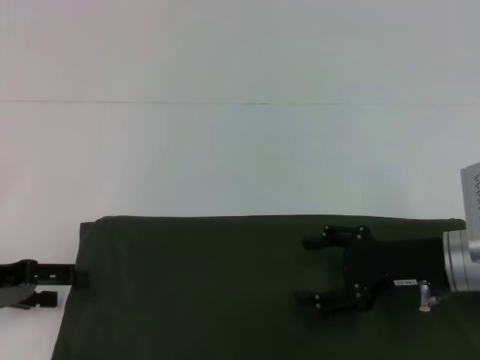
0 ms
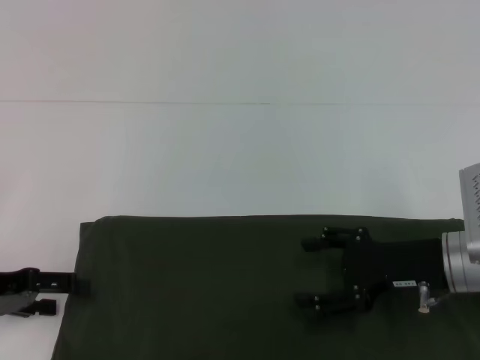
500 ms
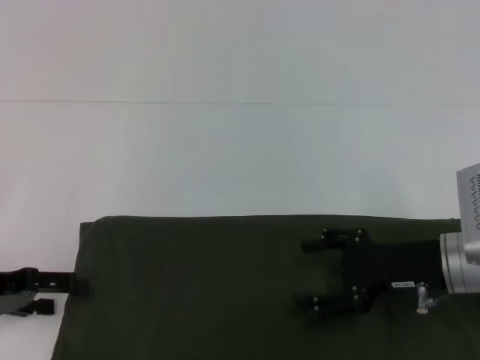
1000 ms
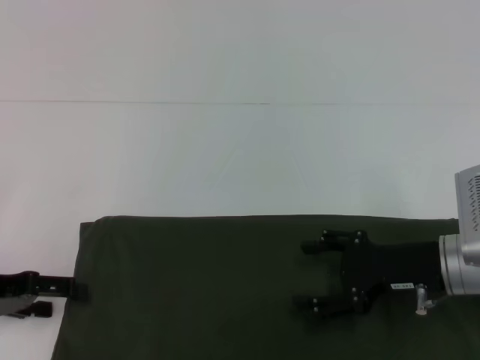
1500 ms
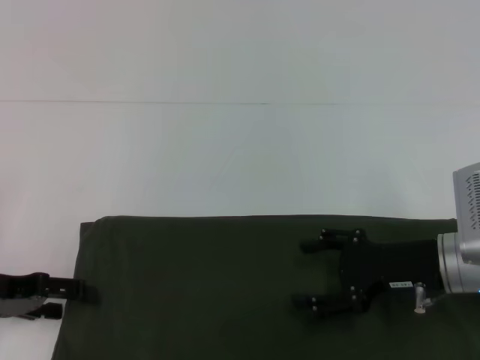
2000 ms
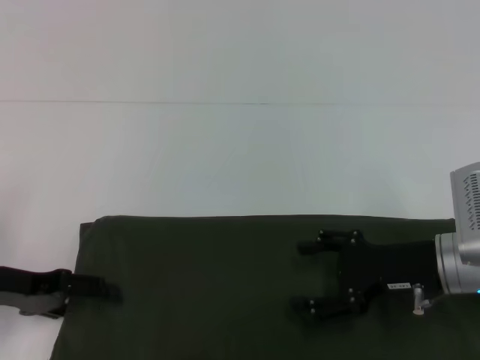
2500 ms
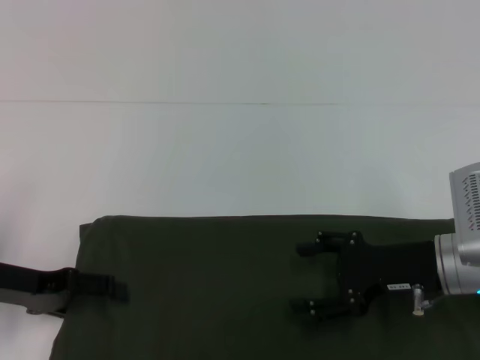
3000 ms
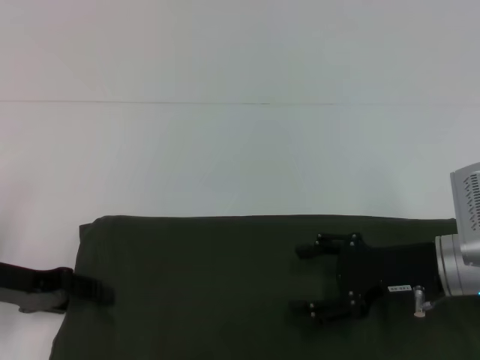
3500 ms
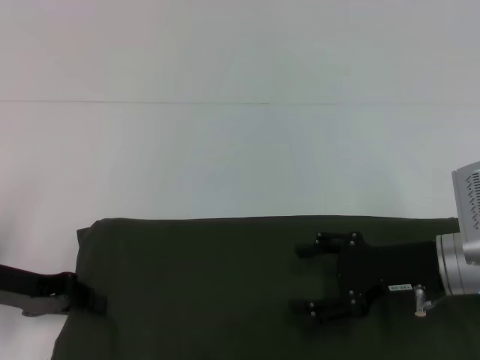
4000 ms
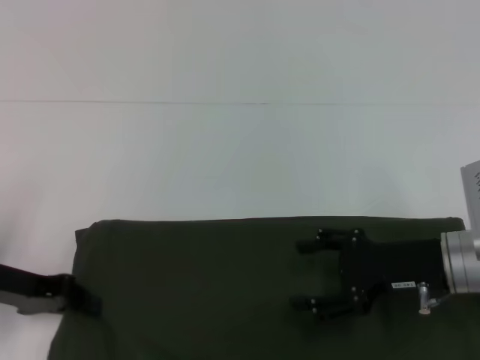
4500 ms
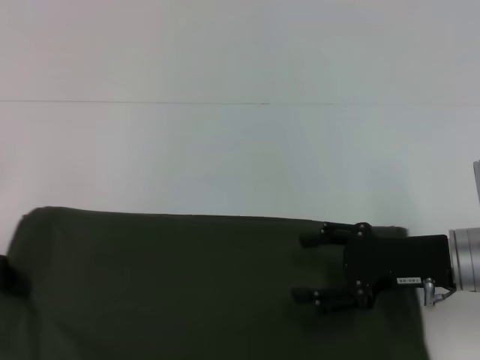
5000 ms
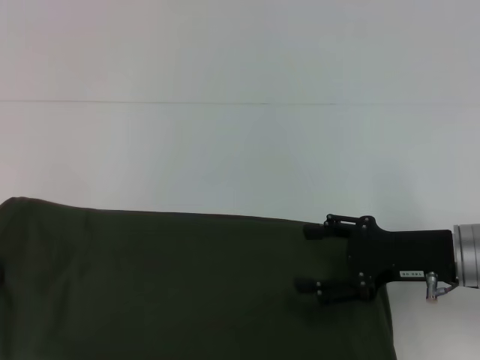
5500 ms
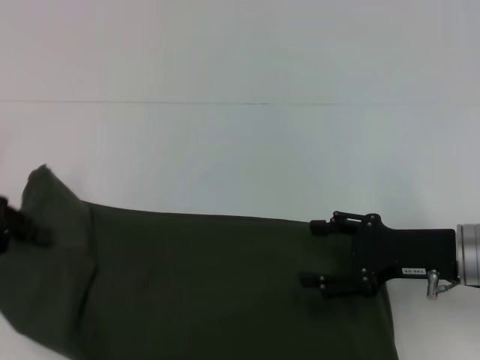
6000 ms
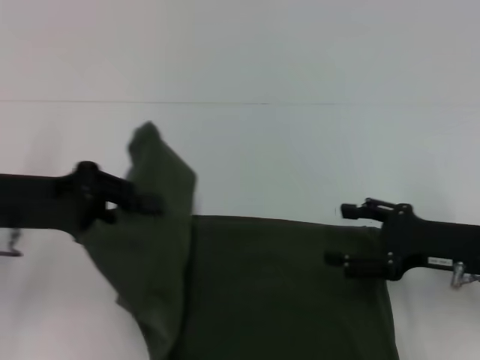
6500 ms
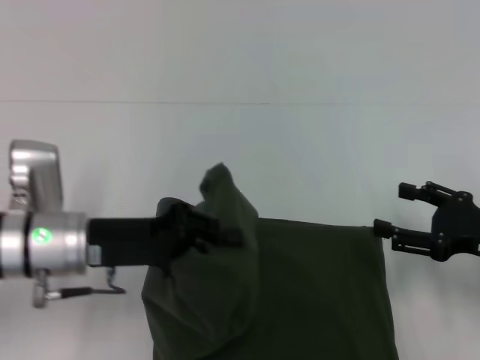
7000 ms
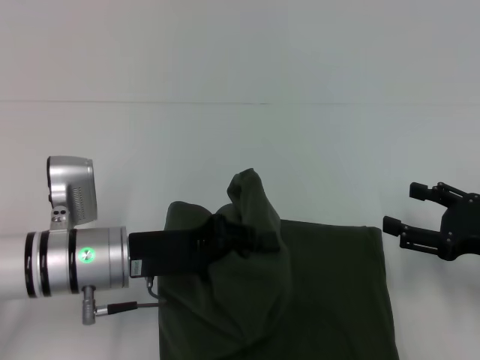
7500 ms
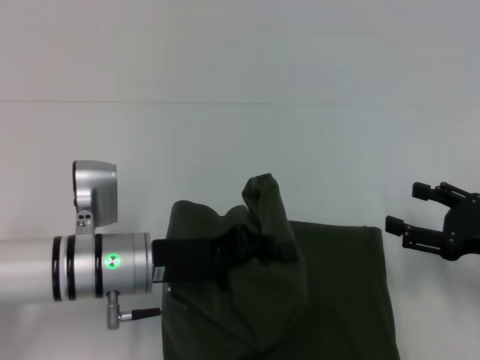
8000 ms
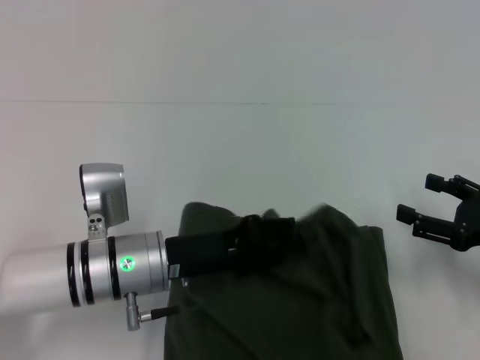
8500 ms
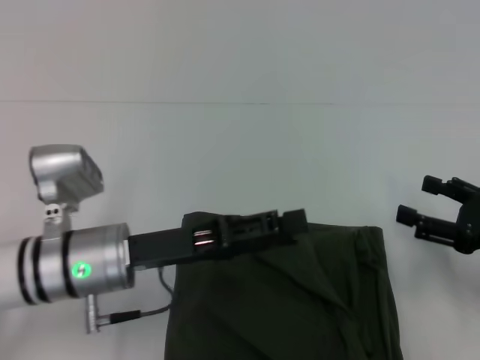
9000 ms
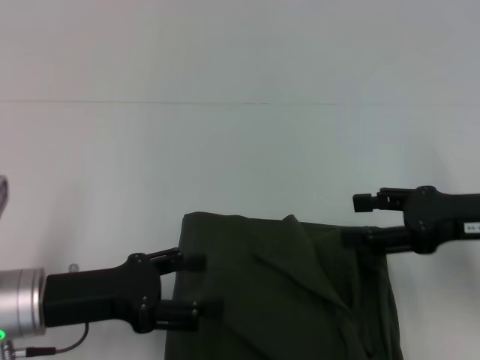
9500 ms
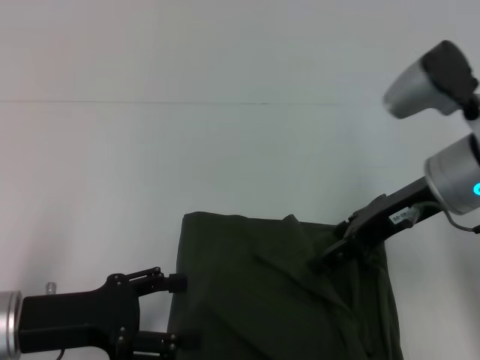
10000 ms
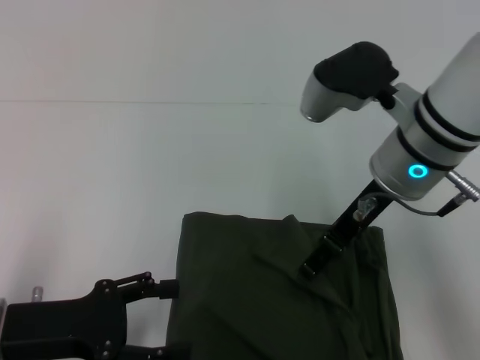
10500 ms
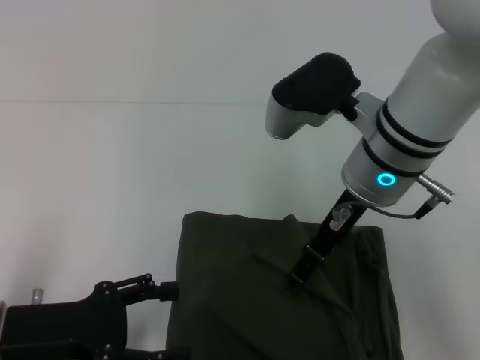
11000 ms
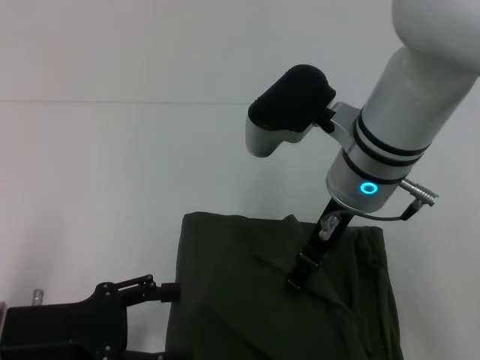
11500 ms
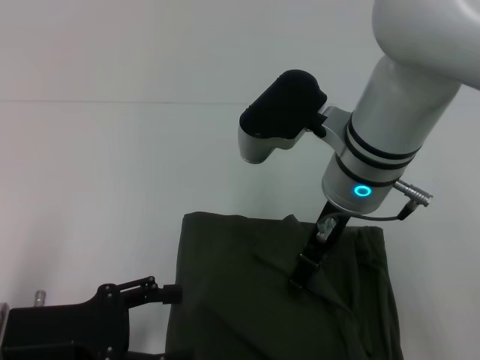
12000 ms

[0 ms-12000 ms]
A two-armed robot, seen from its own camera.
Step, 0 ms to 10500 ms: Fold the clothes with your left hand.
0 ms to 2000 ms: The grippers make only small movements.
2000 ms to 4000 ms: The left gripper closes its fingers.
4000 ms to 6000 ms: The left gripper is displaced upward by some 10 cm.
6000 ms to 8000 ms: The right gripper is displaced to the right by about 10 cm. The left gripper moves to the right and downward, approximately 20 cm.
8000 ms to 10000 ms: The right gripper moves to the left, upward and forward, approximately 20 cm, while the left gripper goes approximately 10 cm to the left and backward, and opens up.
10000 ms to 12000 ms: The right gripper is displaced to the left by some 10 cm.

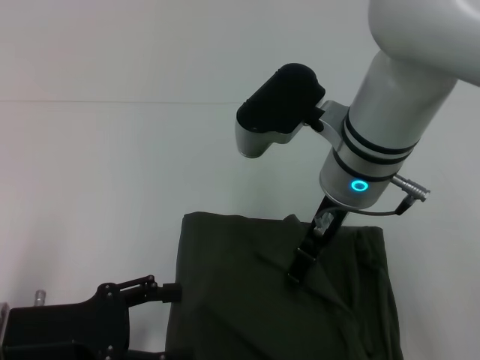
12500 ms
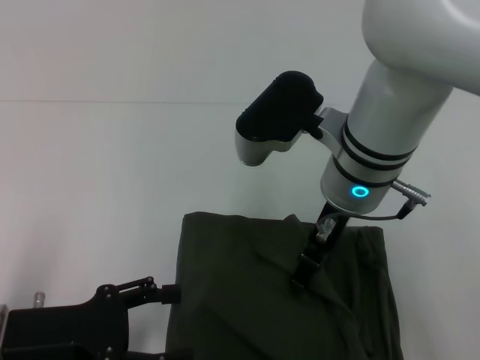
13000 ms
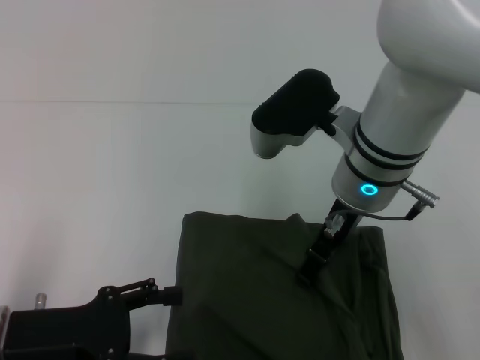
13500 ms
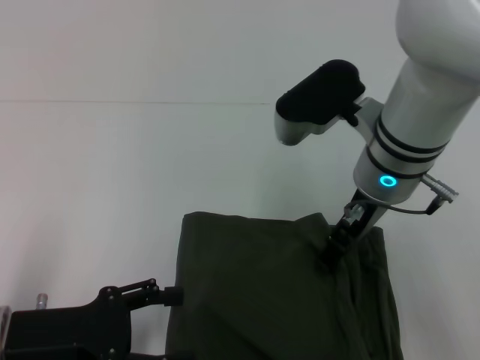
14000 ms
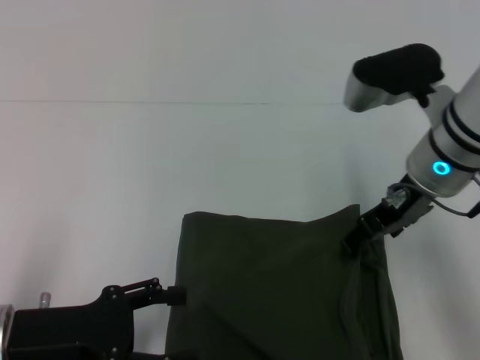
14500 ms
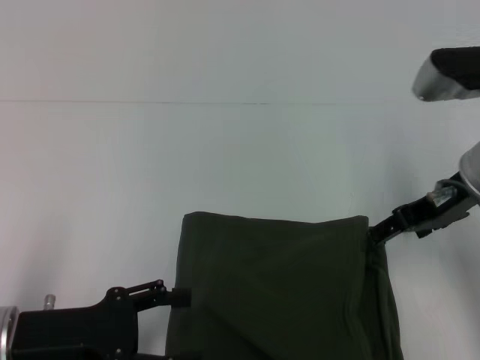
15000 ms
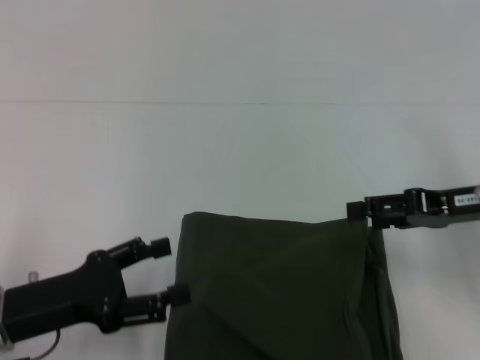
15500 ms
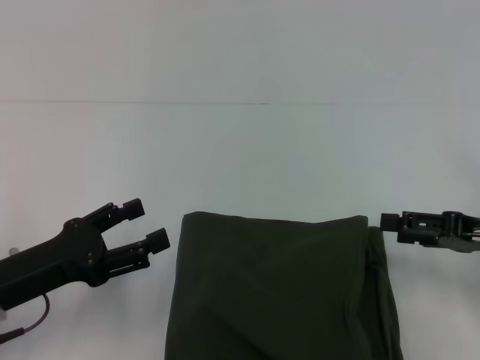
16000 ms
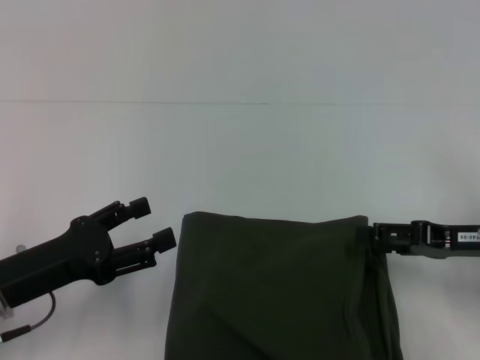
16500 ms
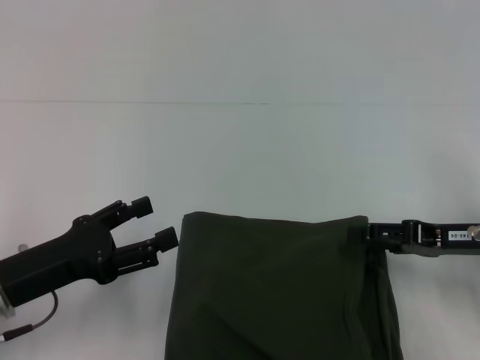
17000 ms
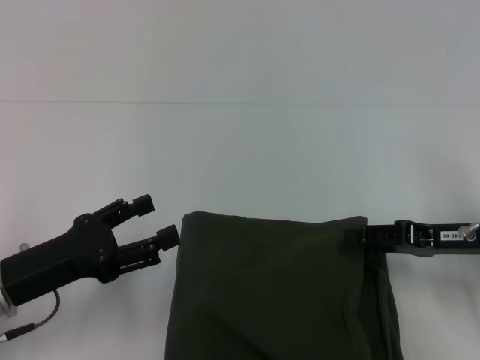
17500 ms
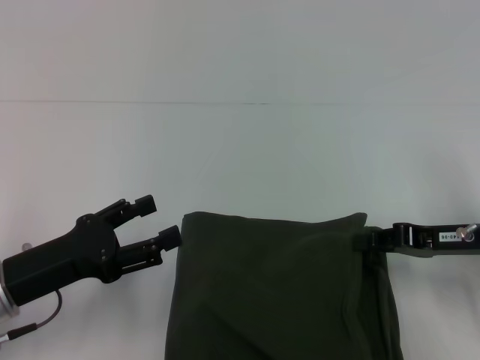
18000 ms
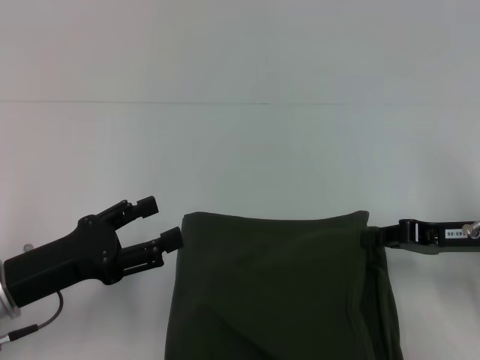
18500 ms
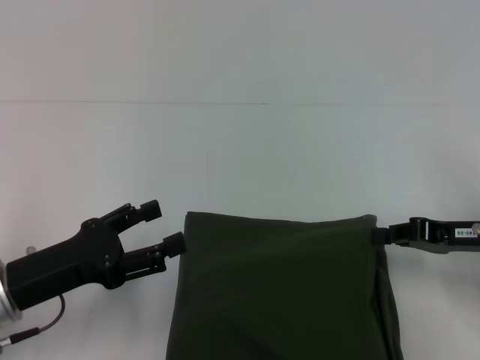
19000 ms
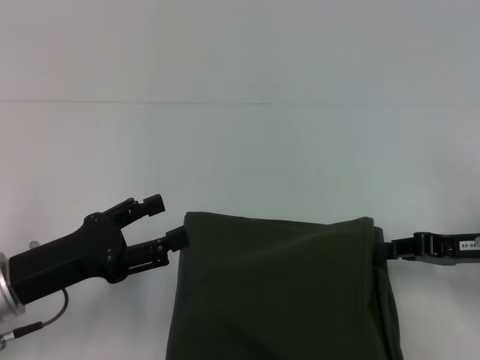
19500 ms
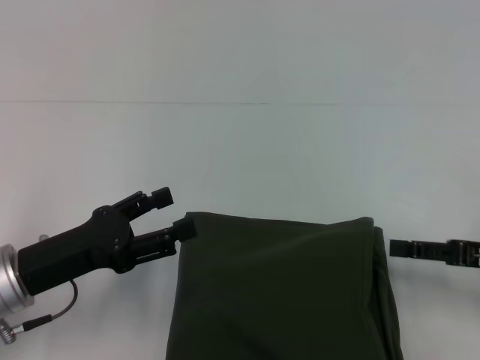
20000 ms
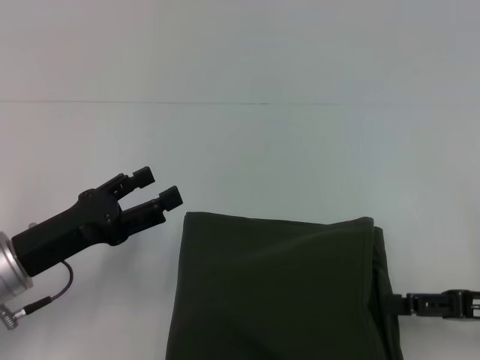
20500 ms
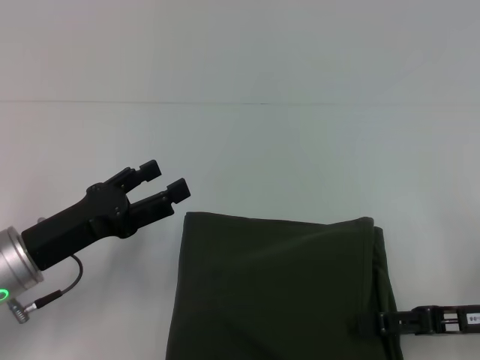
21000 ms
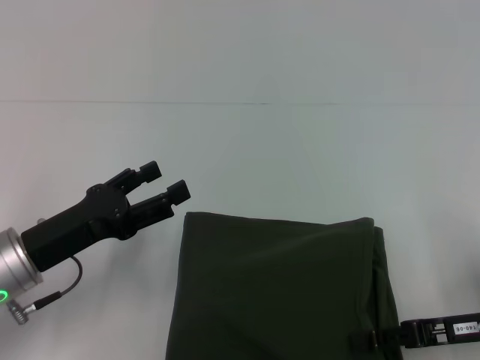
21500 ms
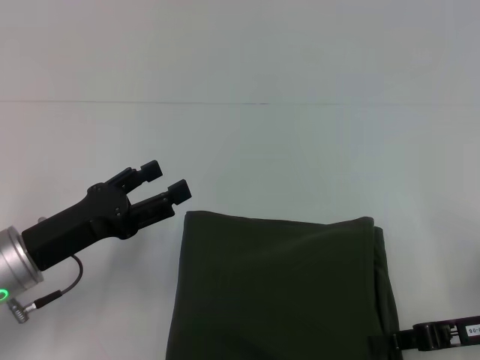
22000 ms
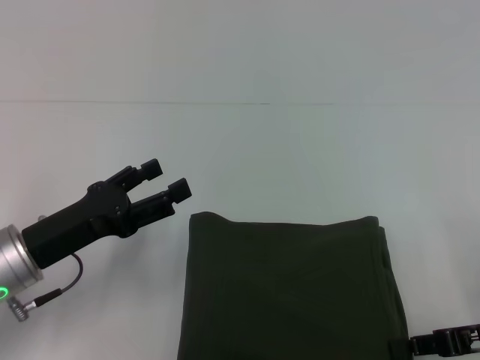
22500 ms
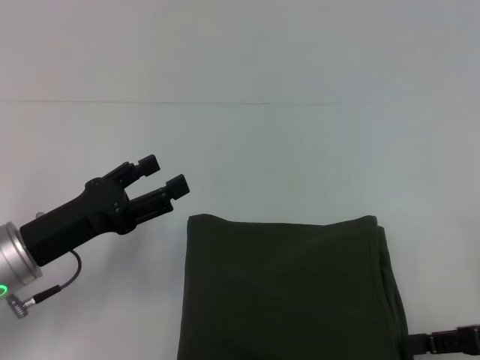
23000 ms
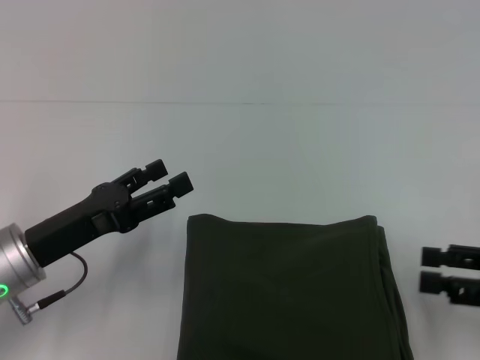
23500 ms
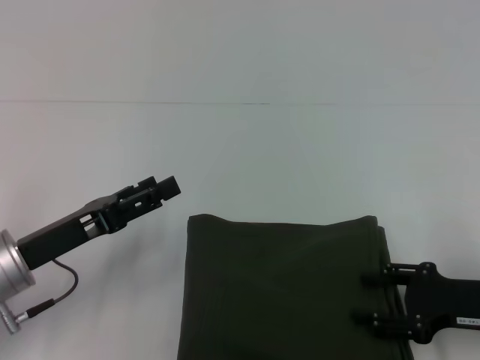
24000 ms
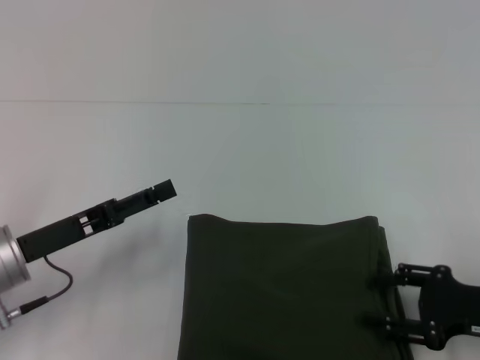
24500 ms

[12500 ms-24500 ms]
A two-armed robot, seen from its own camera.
12500 ms to 14500 ms: The right gripper moves to the right, roughly 10 cm.
14500 ms to 16500 ms: The right gripper travels to the right, downward and backward by approximately 15 cm.
16500 ms to 18500 ms: The right gripper closes.
18500 ms to 20500 ms: The right gripper heads backward, covering some 5 cm, and opens its fingers.
20500 ms to 22500 ms: The right gripper closes its fingers.
22500 ms to 24500 ms: The right gripper opens.

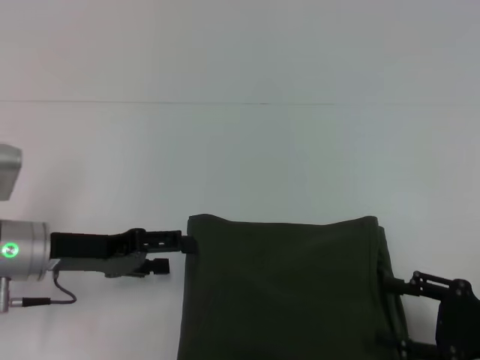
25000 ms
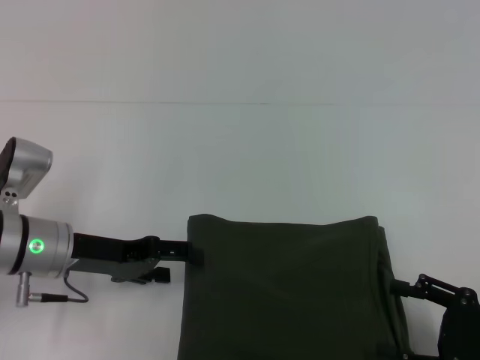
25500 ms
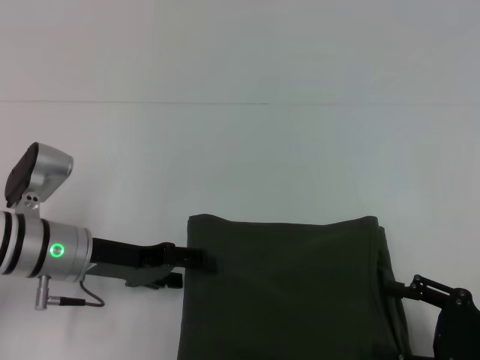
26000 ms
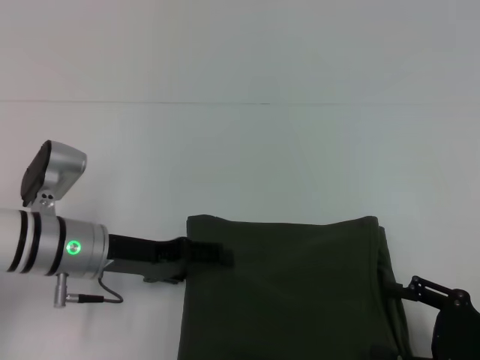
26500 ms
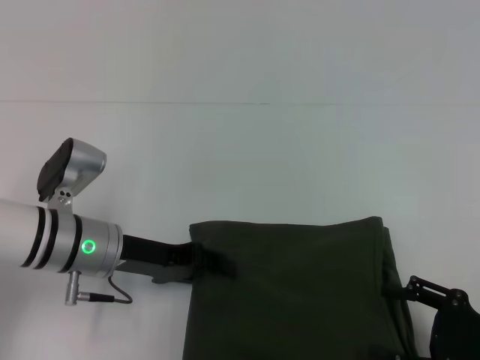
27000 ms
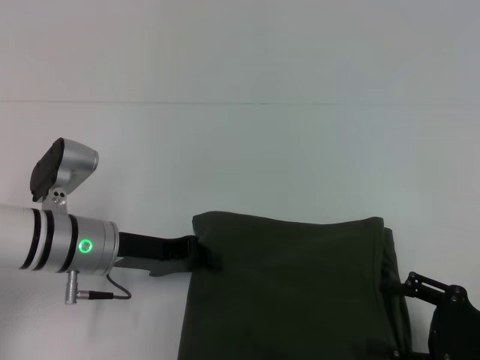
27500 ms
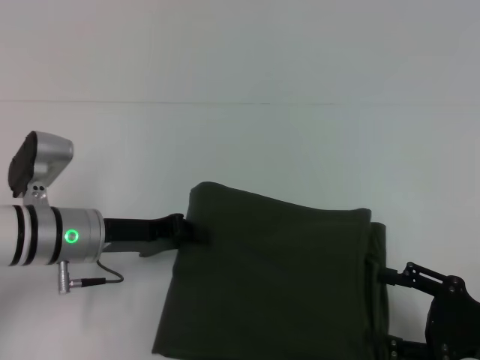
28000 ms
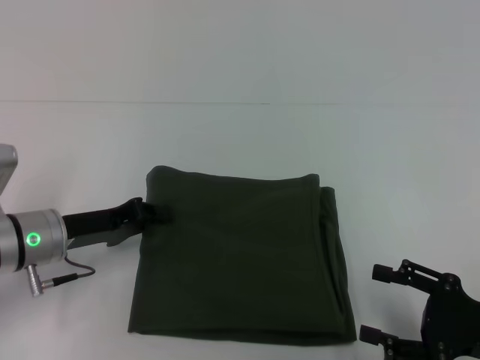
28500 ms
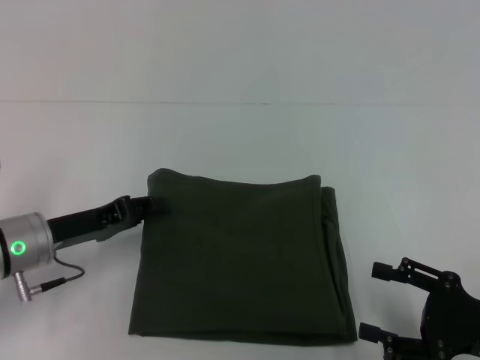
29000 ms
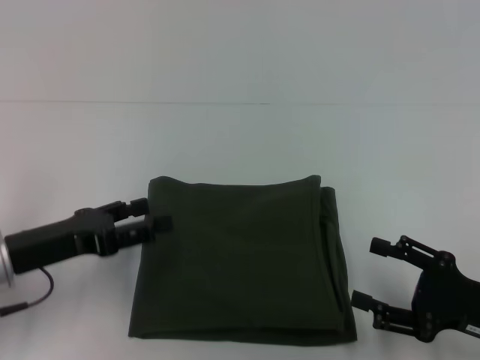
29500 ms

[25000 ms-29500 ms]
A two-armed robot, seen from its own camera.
25000 ms to 27000 ms: The left gripper goes roughly 5 cm to the right.
27000 ms to 29500 ms: The left gripper goes approximately 10 cm to the left and backward, and closes and opens again.
